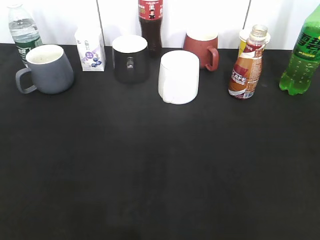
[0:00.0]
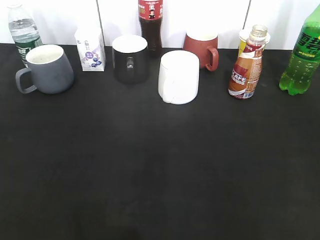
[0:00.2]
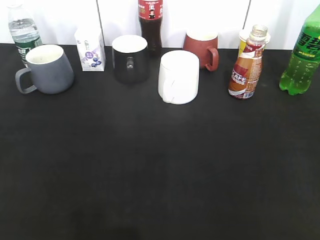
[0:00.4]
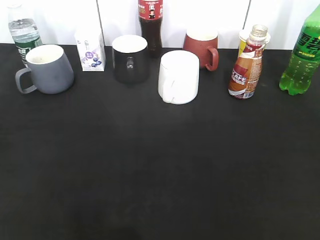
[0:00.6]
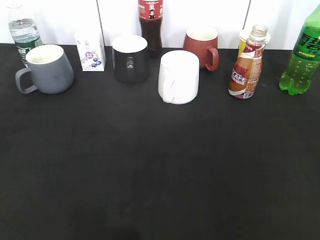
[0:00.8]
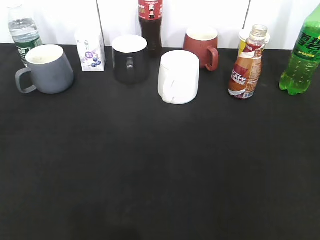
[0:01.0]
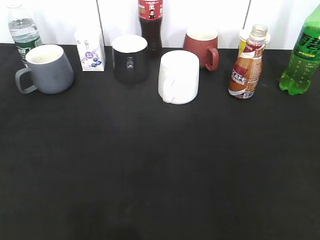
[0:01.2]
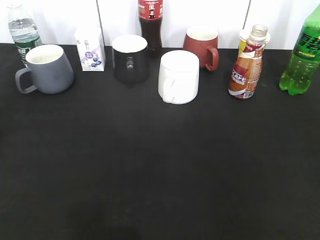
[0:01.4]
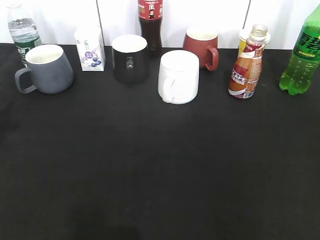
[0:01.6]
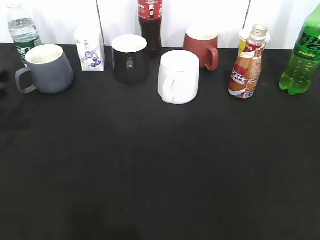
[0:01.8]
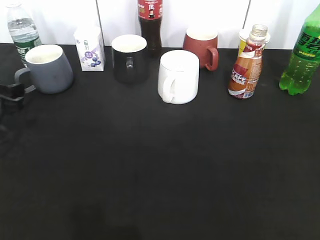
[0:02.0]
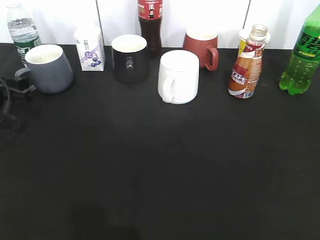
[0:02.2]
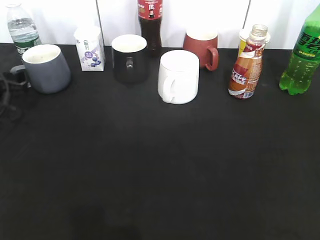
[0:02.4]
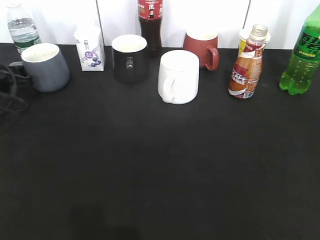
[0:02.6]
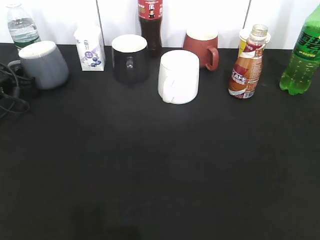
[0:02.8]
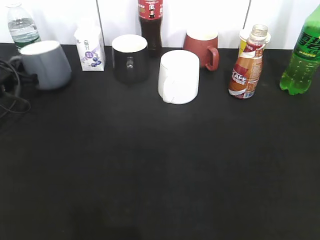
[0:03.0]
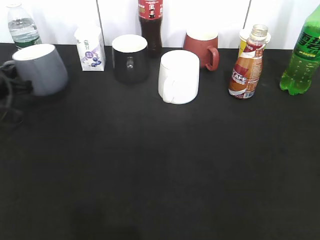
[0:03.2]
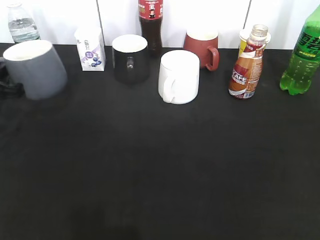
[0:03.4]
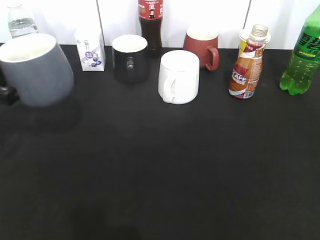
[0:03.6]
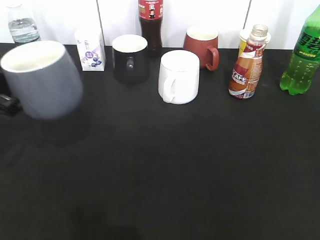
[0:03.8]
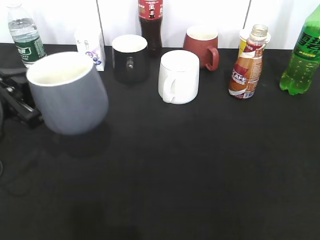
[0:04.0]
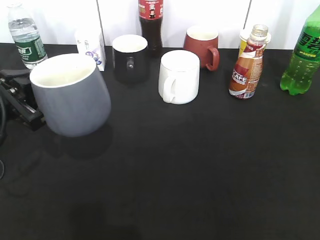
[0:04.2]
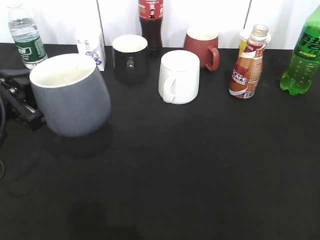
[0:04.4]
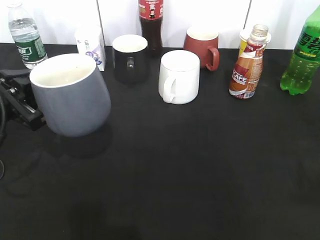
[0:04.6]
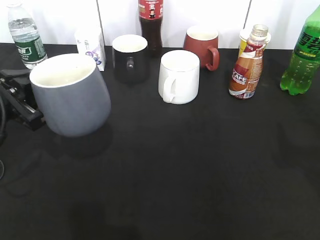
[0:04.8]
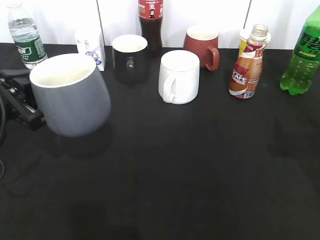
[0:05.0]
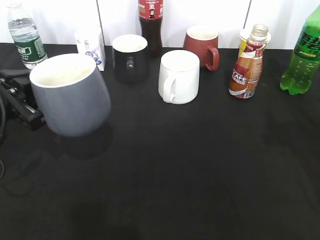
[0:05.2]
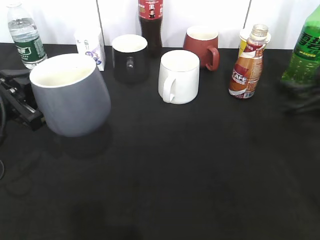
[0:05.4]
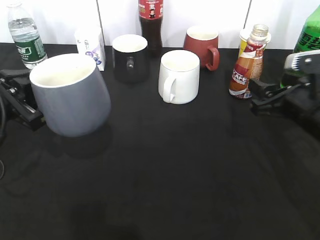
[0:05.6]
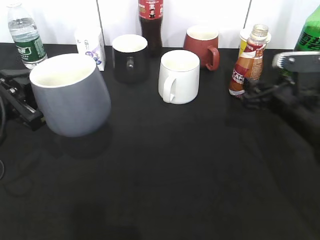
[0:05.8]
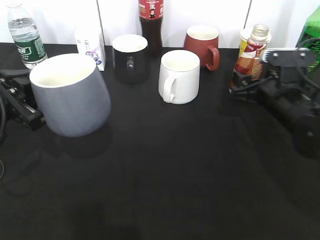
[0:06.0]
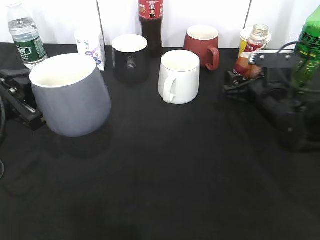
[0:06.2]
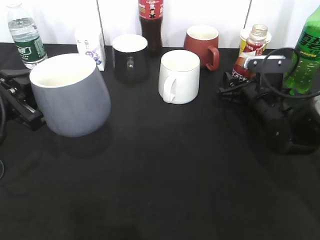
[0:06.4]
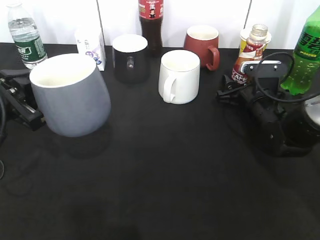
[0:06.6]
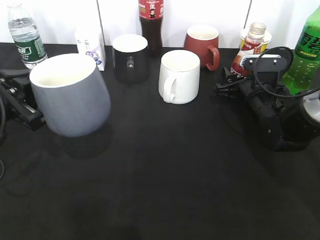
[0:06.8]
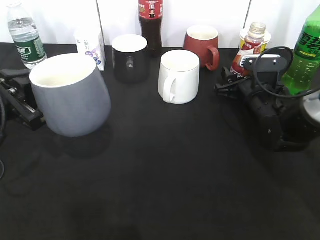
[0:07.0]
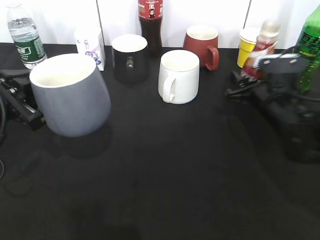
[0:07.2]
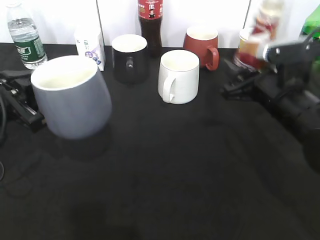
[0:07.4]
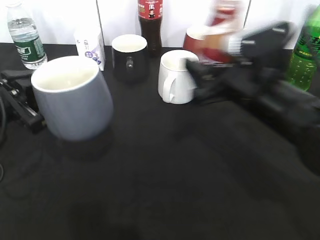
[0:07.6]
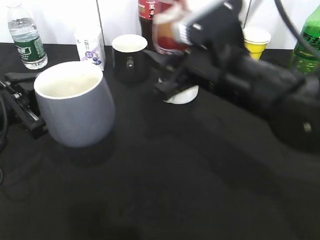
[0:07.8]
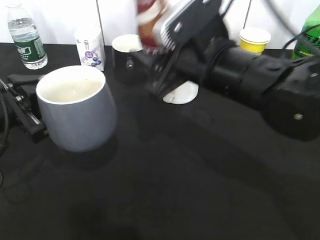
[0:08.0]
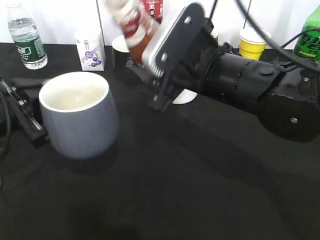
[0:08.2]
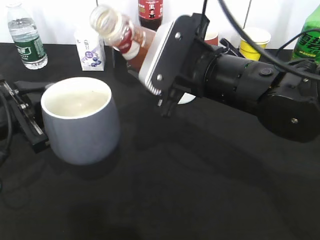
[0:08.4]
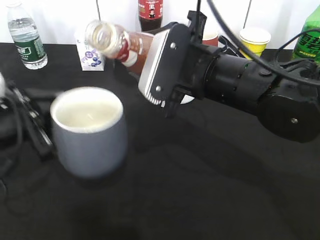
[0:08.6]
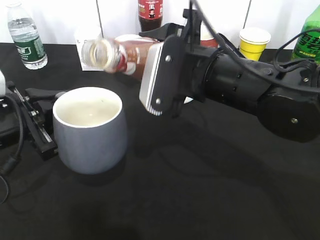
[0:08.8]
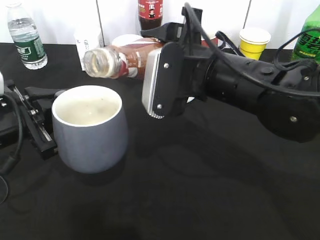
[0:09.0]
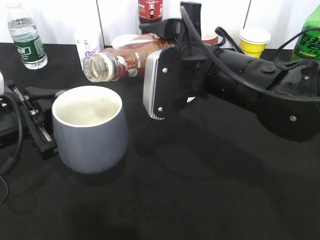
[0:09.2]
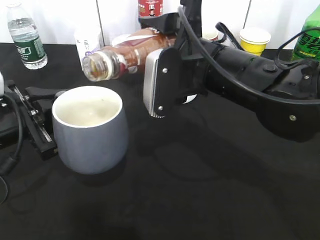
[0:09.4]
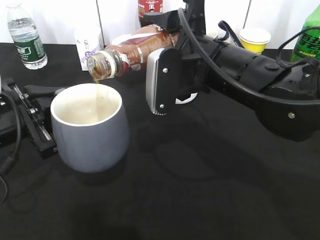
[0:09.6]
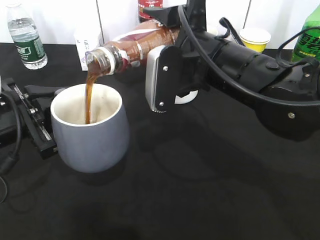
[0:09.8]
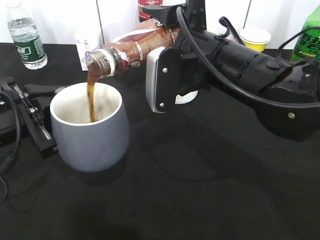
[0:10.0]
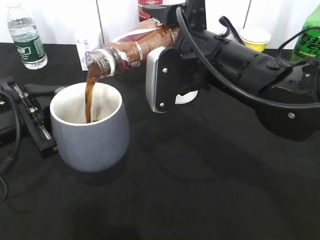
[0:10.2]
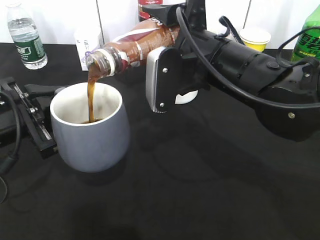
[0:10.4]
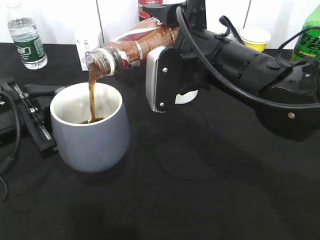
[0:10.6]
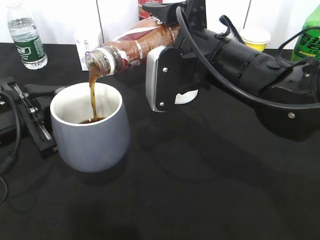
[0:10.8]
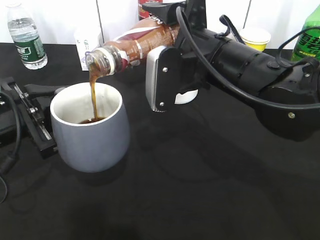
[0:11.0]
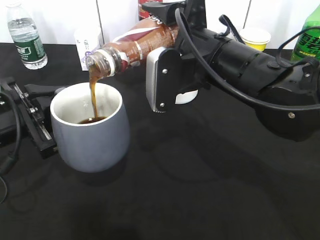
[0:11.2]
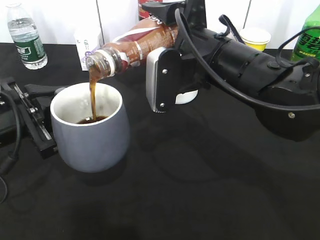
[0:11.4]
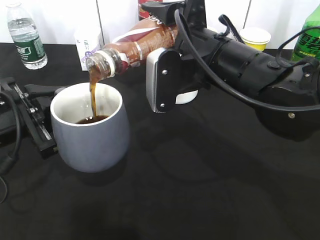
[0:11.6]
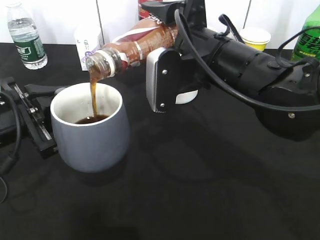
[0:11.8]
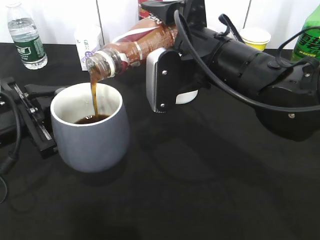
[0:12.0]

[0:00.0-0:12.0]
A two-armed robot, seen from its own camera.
Step, 0:03.0 to 0:05.0: Lift the grey cup with left gripper.
Step, 0:05.2 to 0:06.8: Grasp the bottle with coffee with right gripper.
0:00.0 to 0:01.6: The left gripper travels forward by roughly 25 cm.
0:01.6 to 0:03.0: The left gripper heads forward and downward, covering approximately 20 cm, and closes its fingers.
0:03.0 to 0:04.4: The left gripper travels backward, to the right and upward by approximately 20 cm.
0:04.4 to 0:06.0: The right gripper heads forward and downward, covering some 35 cm, and opens up.
0:06.0 to 0:07.6: The right gripper is displaced to the left, upward and backward by about 15 cm, and closes up.
0:07.6 to 0:09.0: The right gripper travels to the left by approximately 5 cm.
0:09.0 to 0:10.4: The grippers stay close to where they were, moving slightly.
0:10.4 to 0:12.0: The two grippers keep their place.

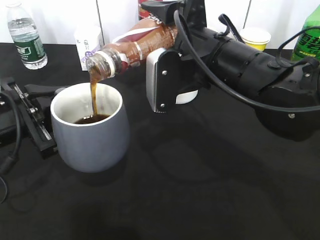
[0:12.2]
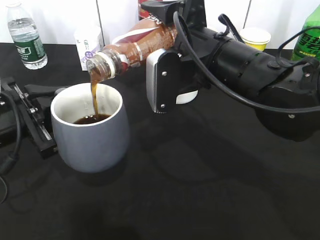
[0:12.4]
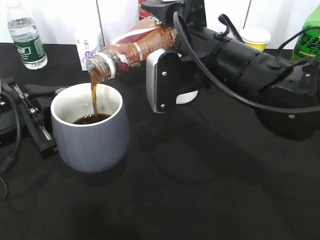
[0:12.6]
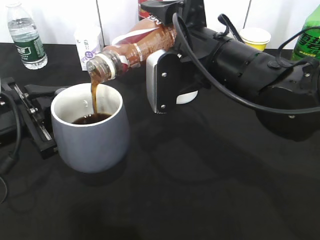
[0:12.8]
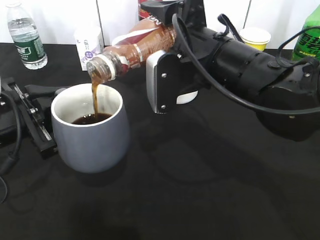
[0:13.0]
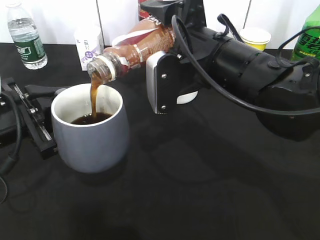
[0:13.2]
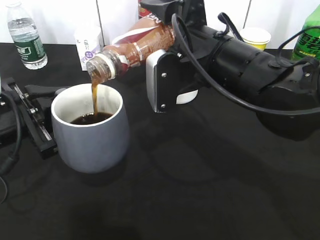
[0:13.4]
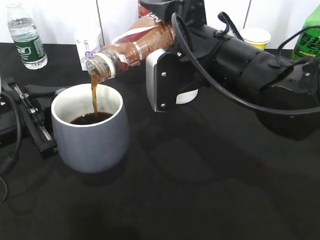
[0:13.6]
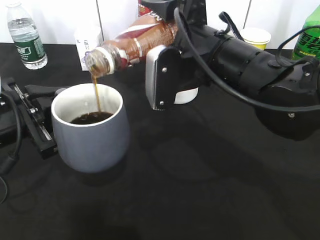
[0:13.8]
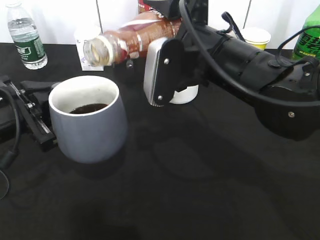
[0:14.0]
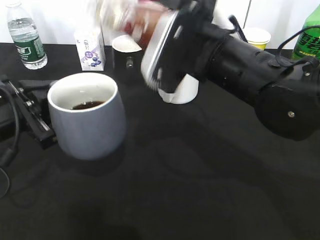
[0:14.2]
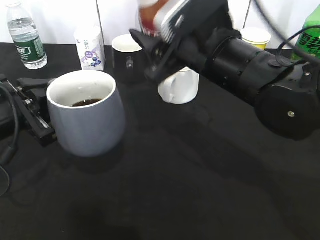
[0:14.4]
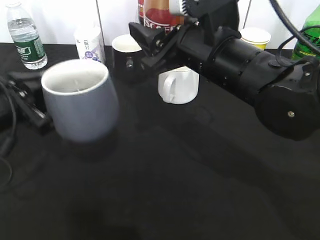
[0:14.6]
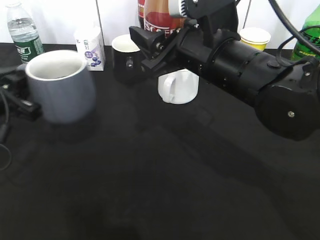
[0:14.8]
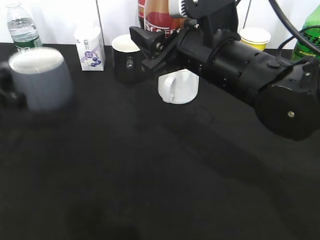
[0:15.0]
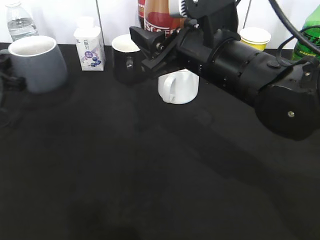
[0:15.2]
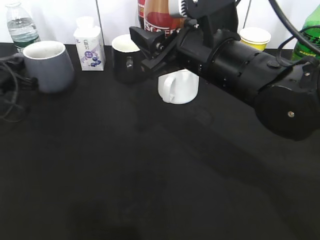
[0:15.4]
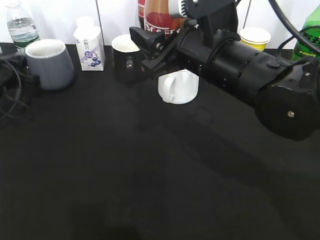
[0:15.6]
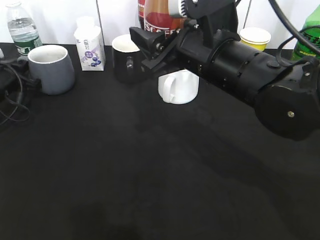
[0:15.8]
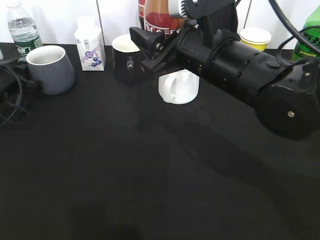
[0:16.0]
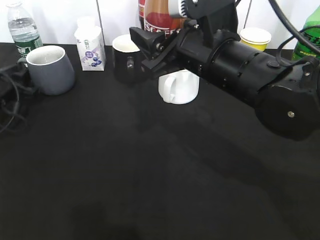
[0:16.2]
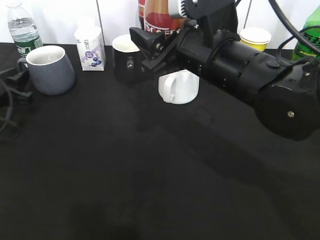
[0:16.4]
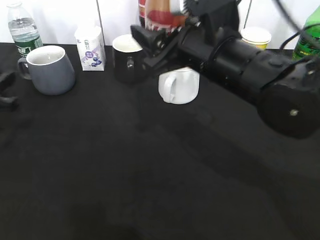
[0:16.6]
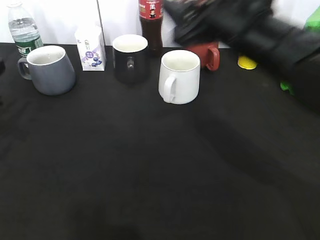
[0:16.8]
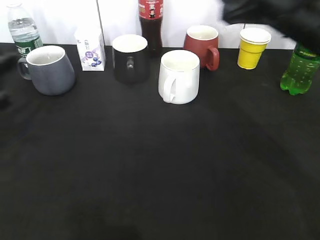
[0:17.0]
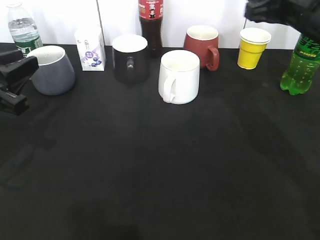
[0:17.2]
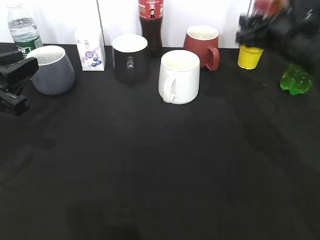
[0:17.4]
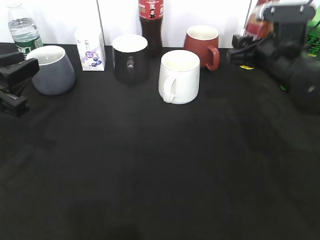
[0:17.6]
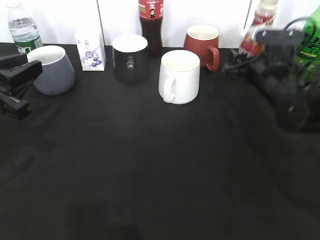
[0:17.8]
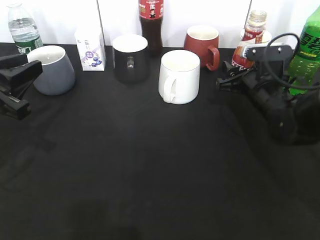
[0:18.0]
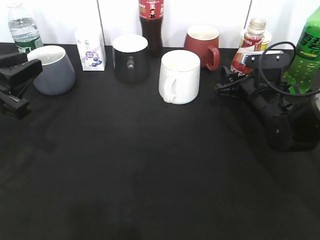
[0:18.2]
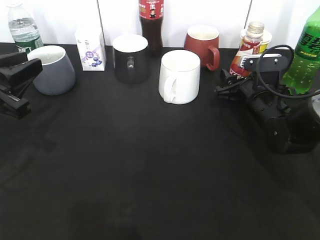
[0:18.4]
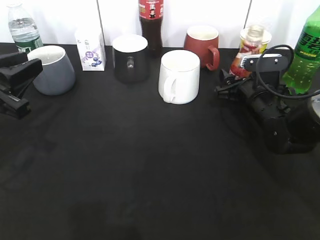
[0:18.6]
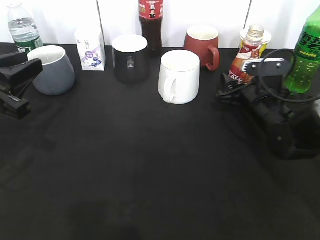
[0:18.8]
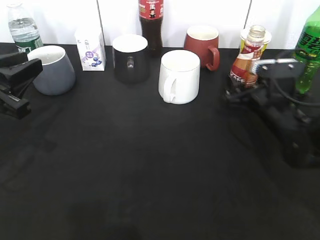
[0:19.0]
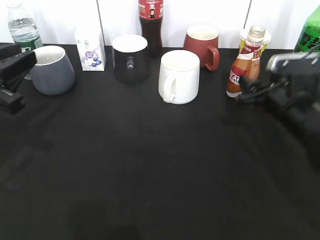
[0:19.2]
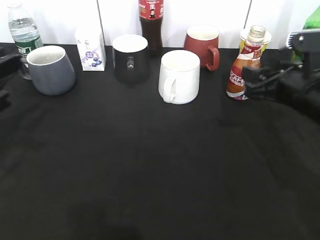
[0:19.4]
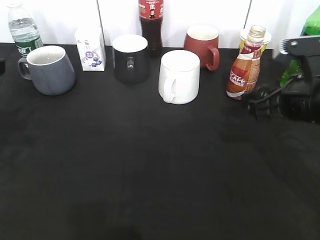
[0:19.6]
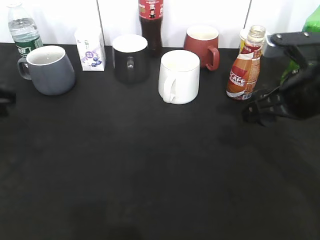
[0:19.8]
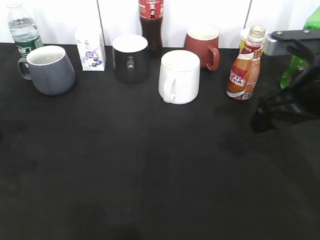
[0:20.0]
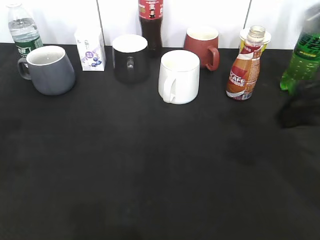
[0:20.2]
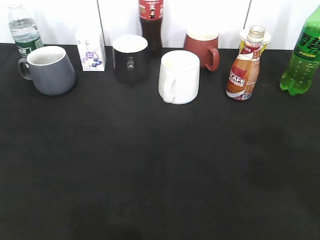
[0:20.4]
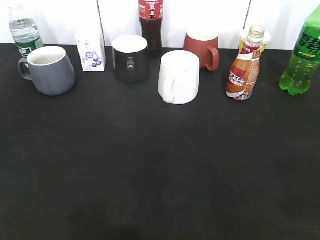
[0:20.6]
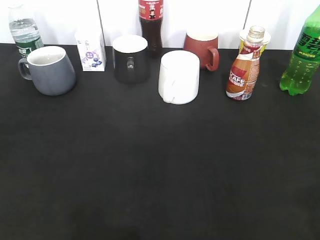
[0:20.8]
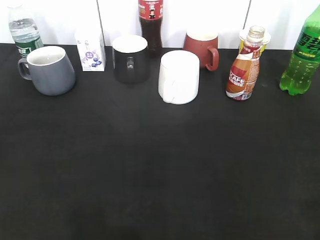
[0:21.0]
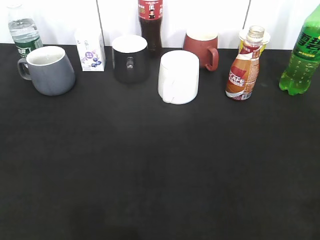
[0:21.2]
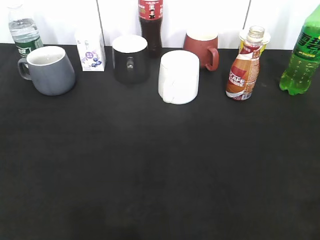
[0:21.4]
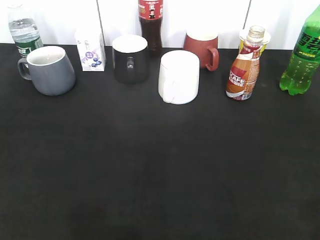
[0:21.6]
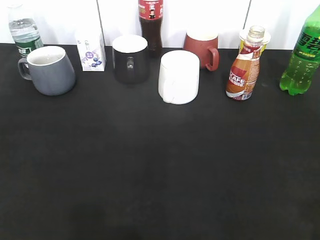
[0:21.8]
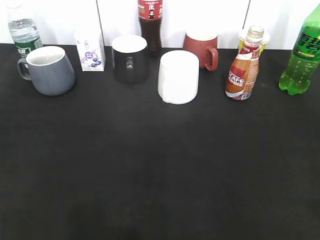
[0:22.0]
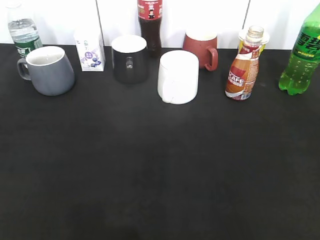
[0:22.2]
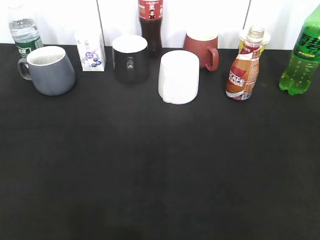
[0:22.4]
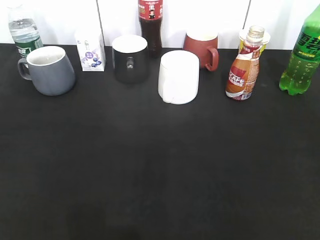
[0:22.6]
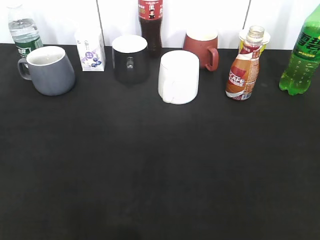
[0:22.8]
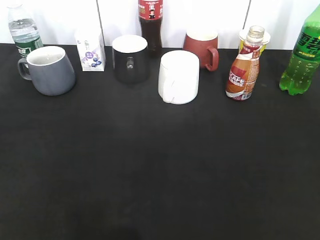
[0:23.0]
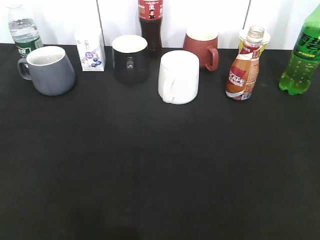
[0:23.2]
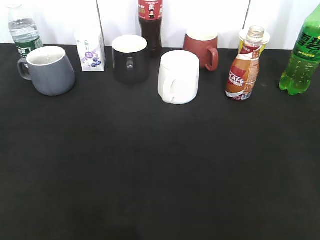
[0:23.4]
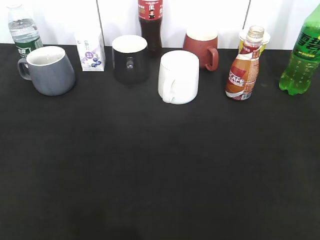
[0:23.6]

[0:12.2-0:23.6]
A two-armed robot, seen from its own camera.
Step, 0:14.4 to 0:16.6: Place the grey cup on the table with left gripper.
Step, 0:16.8 to 0:19.2: Place the coffee bottle on the table with right gripper.
0:12.2 to 0:13.6: Neither gripper changes place.
0:13.6 to 0:15.0: The left gripper is displaced to the left and forward by roughly 10 cm.
0:15.0 to 0:16.4: The left gripper moves forward and downward, about 10 cm, and opens its fingers.
0:16.4 to 0:17.8: The left gripper goes roughly 15 cm backward, upward and to the right. Meanwhile the right gripper travels to the right, downward and forward by some 20 cm.
0:17.8 to 0:19.4: The right gripper is displaced backward by approximately 10 cm, and opens its fingers.
0:19.4 to 0:20.8: The left gripper moves backward, approximately 20 cm. The right gripper goes roughly 25 cm backward and upward.
0:20.8 to 0:22.2: The right gripper ends up some 5 cm from where it was.
